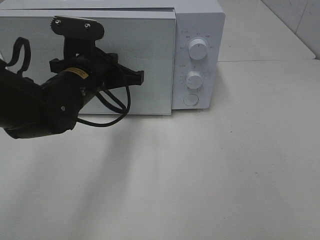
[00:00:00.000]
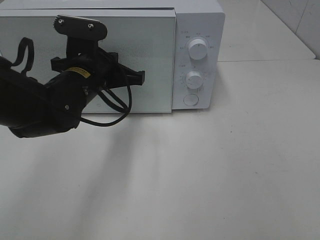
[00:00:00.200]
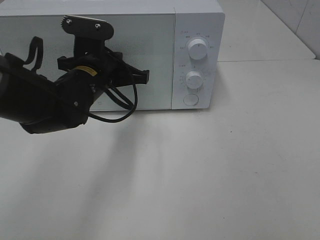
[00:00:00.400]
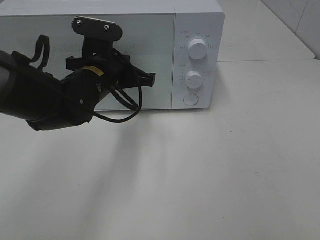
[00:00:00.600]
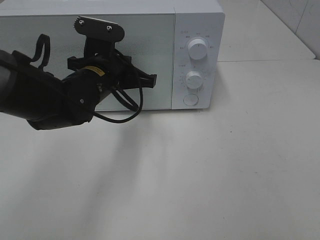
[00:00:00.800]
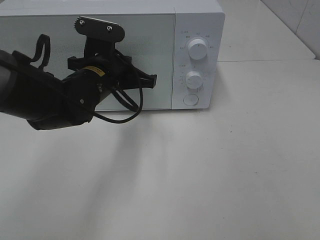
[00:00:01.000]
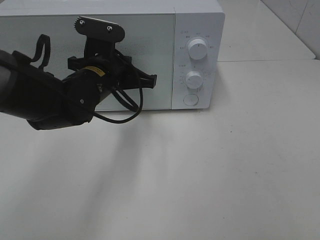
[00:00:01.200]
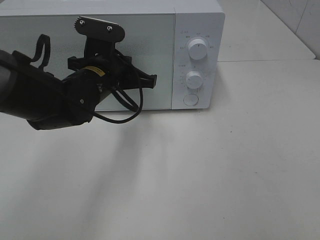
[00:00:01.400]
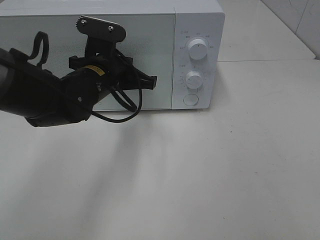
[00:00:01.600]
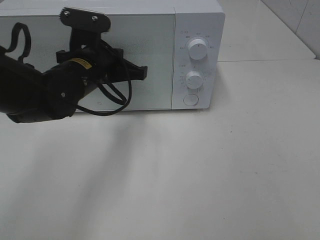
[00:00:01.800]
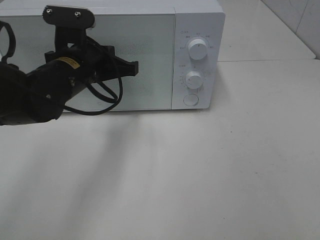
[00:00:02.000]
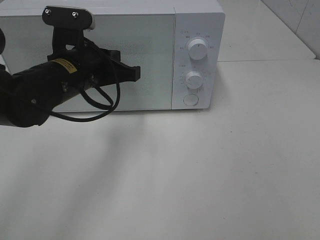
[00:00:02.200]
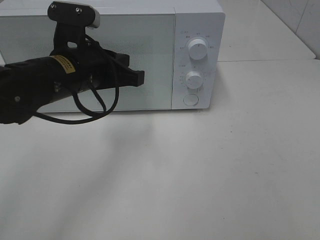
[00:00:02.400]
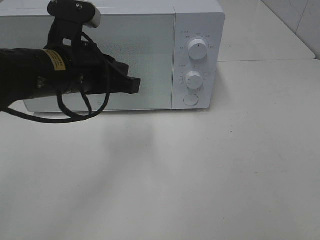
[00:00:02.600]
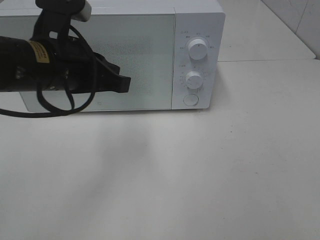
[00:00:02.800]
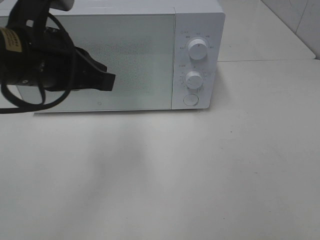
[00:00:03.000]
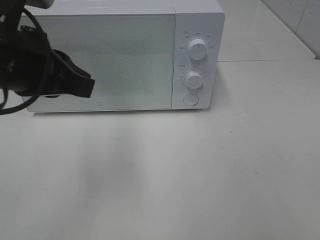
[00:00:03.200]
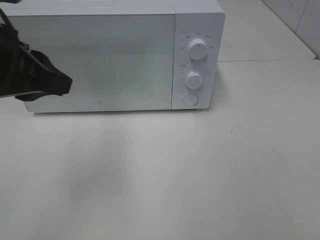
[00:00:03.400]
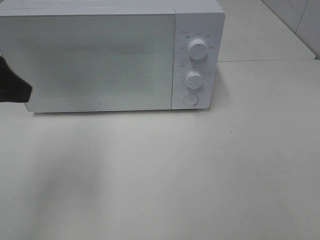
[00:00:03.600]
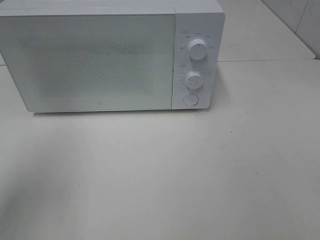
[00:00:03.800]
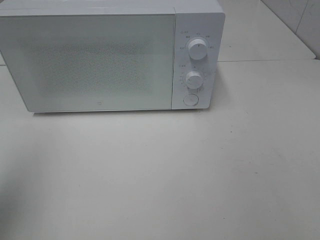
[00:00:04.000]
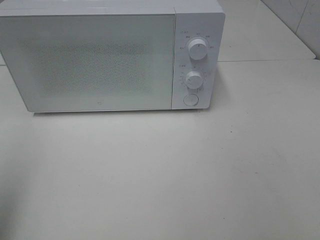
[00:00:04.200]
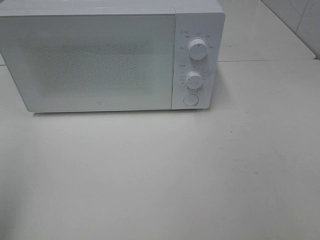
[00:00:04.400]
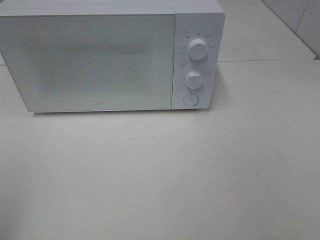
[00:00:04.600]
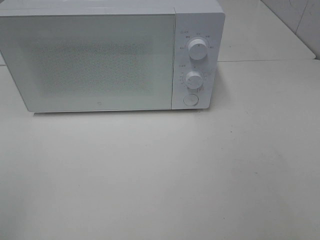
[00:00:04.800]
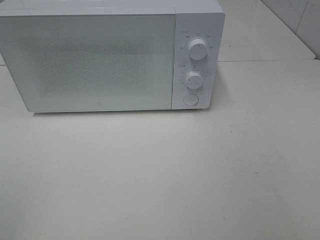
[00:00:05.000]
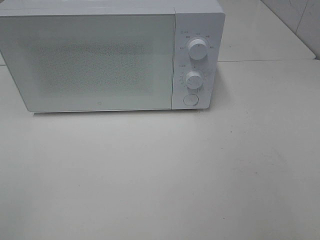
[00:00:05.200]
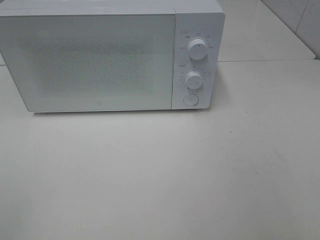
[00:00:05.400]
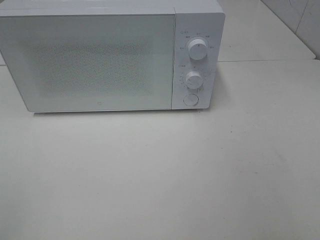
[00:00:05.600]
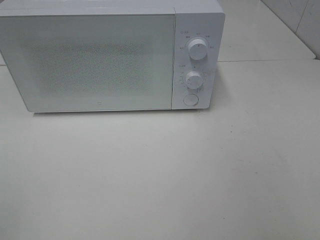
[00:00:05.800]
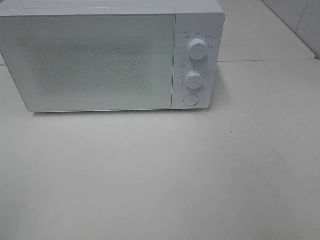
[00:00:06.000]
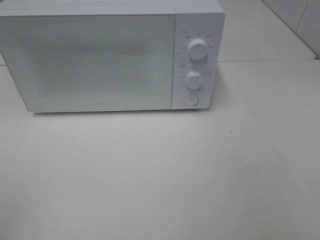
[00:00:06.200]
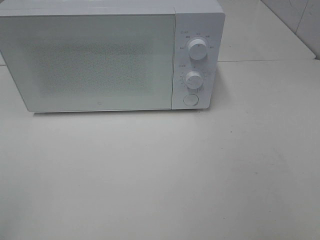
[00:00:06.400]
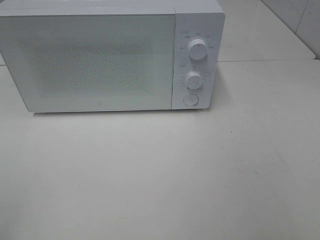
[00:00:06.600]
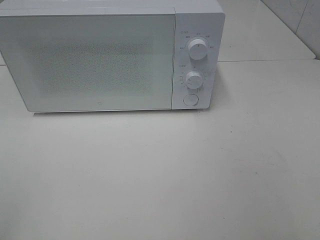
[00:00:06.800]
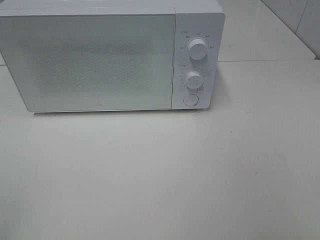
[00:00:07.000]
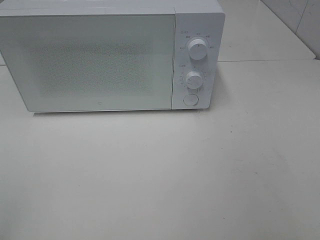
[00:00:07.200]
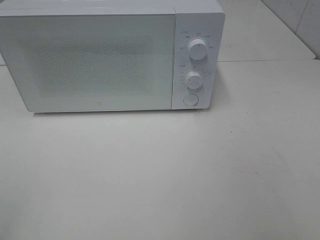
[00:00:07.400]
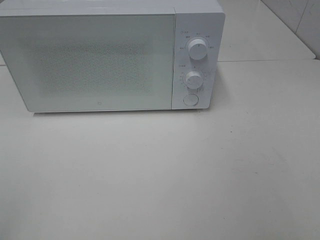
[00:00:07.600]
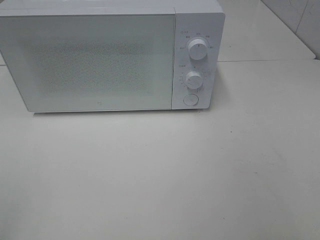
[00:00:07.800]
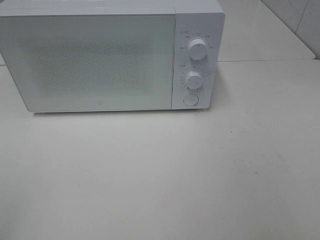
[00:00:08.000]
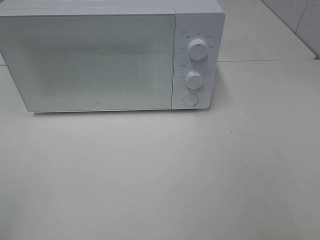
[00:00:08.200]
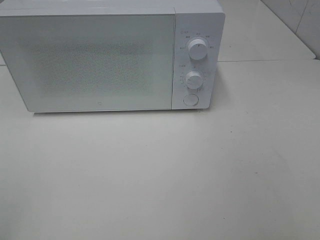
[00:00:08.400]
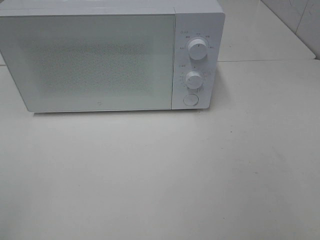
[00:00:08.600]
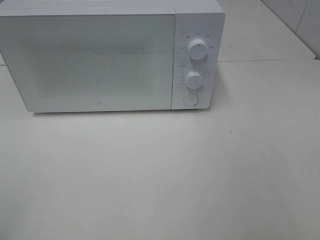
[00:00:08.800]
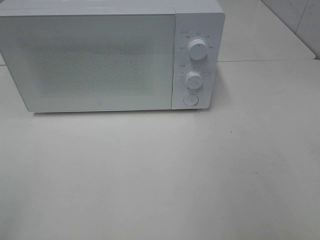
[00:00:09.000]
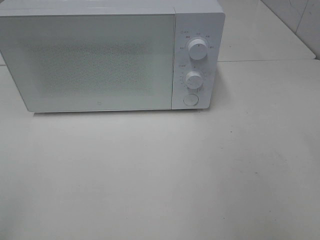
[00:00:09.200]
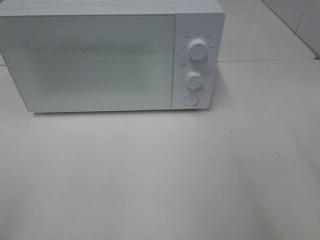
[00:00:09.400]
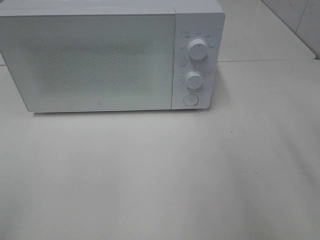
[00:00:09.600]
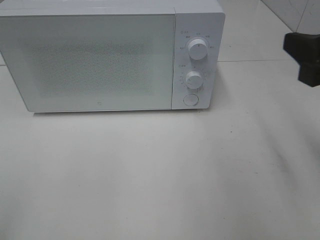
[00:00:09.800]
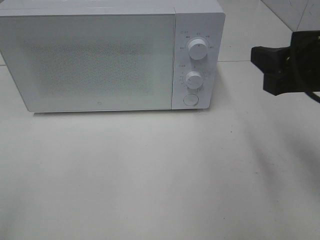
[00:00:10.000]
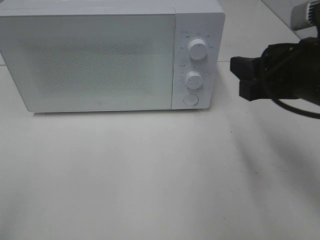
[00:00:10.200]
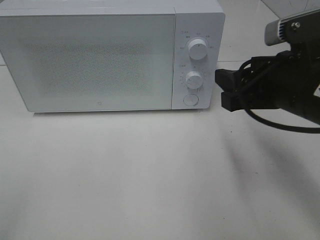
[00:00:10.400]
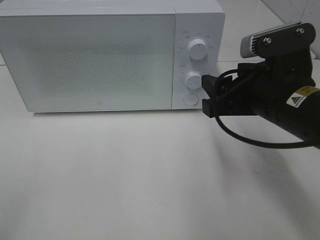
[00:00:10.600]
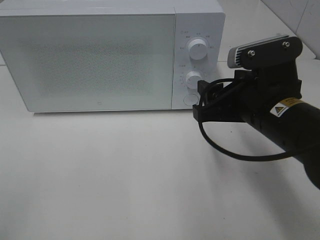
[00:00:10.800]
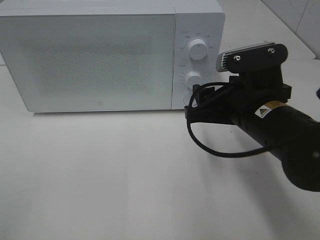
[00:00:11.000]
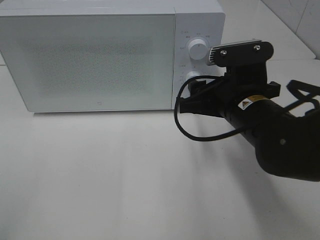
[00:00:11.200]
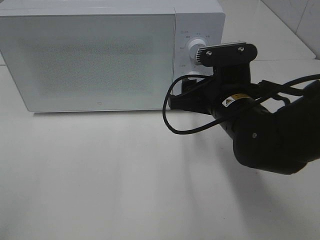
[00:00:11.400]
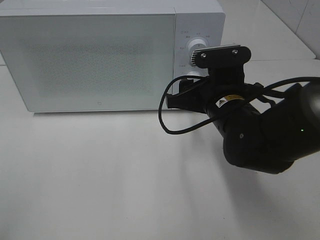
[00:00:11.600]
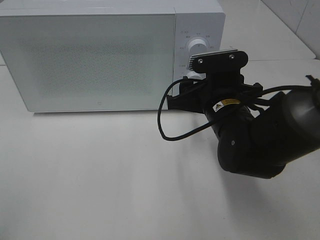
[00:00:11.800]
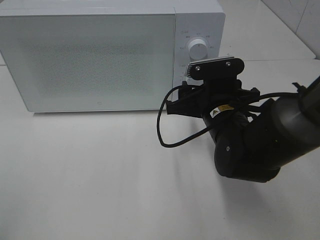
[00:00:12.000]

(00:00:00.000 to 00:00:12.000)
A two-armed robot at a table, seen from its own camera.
Task of the whole recording: Heat Sandwich.
Step, 00:00:00.000 - 00:00:02.000: Left hand: close the microwave door.
00:00:00.000 - 00:00:01.600: The grippers move only a little.
00:00:01.600 - 00:00:03.000: The left gripper moves upward, backward and to the left, roughly 15 cm.
00:00:03.000 - 00:00:04.400: The left gripper heads to the left and backward, covering about 25 cm, and opens its fingers.
00:00:06.000 - 00:00:07.600: Neither gripper changes place.
00:00:09.000 - 00:00:10.400: The right gripper is displaced forward, to the left and downward by some 20 cm.
00:00:10.400 - 00:00:12.000: The right gripper moves downward, to the left and forward, some 15 cm.

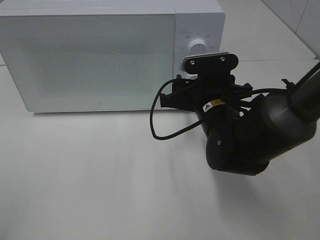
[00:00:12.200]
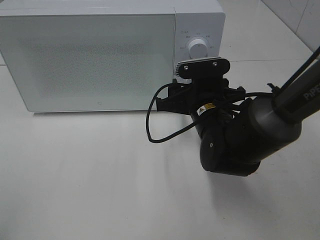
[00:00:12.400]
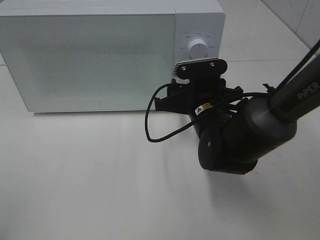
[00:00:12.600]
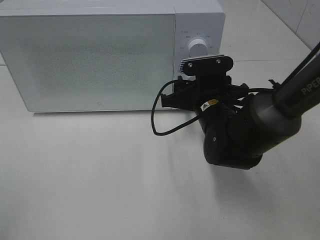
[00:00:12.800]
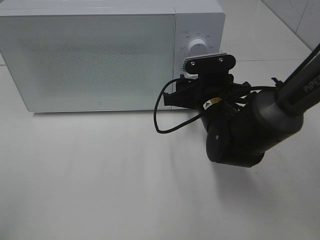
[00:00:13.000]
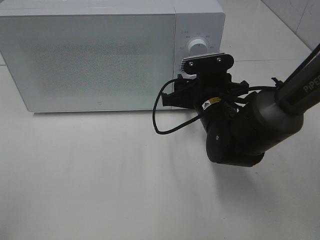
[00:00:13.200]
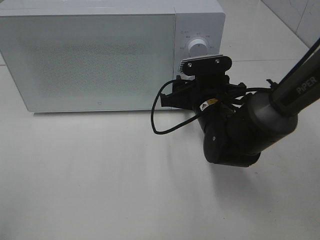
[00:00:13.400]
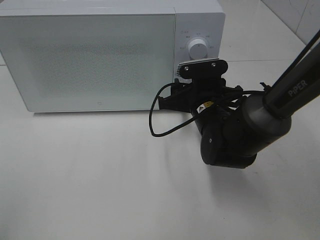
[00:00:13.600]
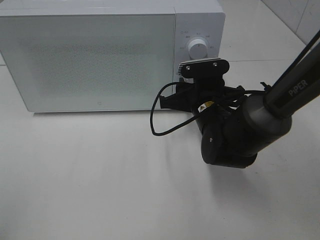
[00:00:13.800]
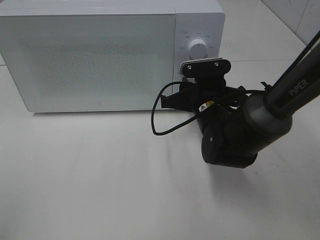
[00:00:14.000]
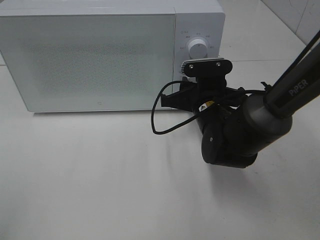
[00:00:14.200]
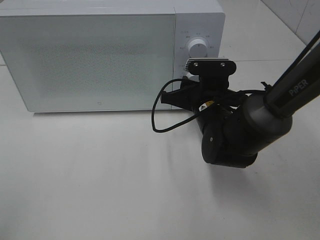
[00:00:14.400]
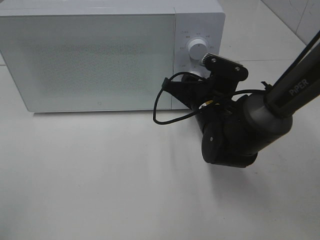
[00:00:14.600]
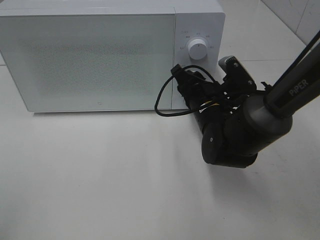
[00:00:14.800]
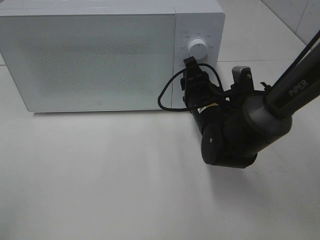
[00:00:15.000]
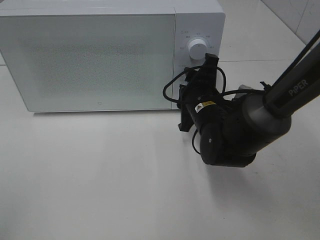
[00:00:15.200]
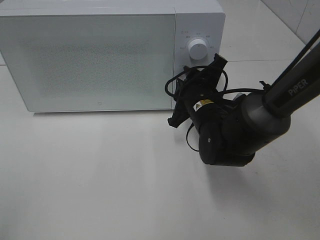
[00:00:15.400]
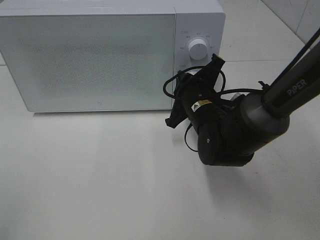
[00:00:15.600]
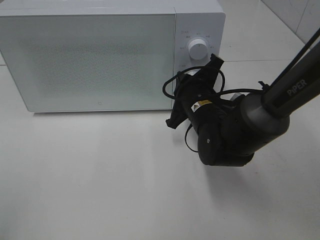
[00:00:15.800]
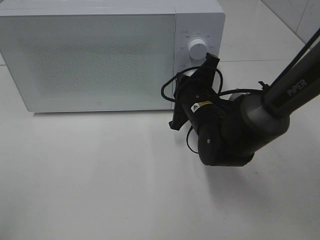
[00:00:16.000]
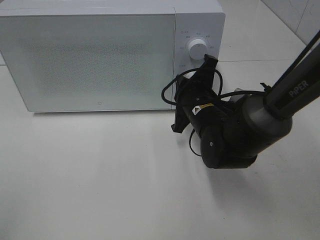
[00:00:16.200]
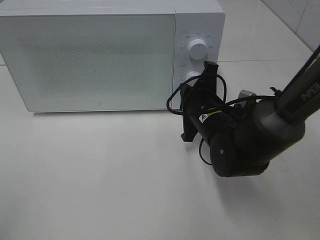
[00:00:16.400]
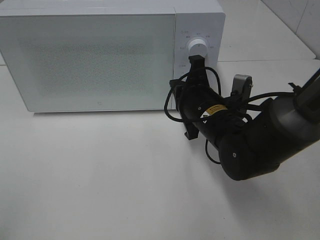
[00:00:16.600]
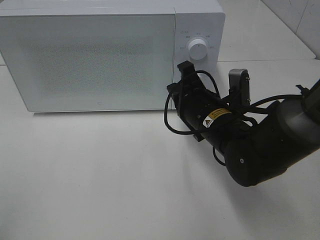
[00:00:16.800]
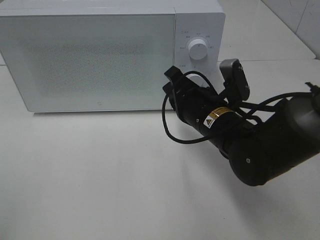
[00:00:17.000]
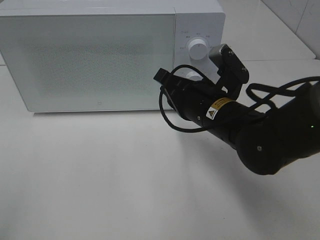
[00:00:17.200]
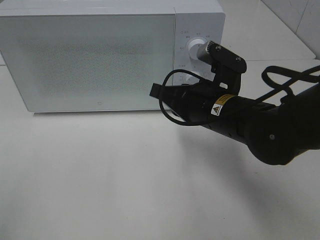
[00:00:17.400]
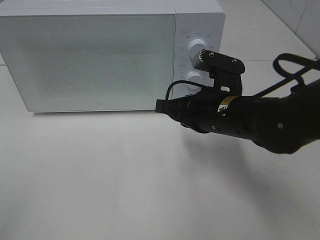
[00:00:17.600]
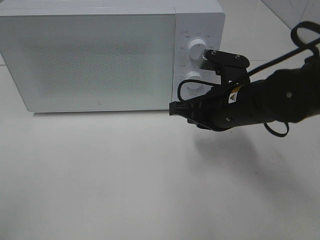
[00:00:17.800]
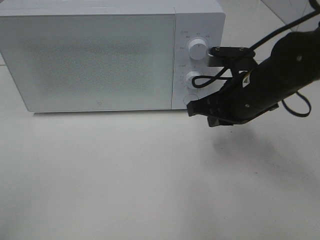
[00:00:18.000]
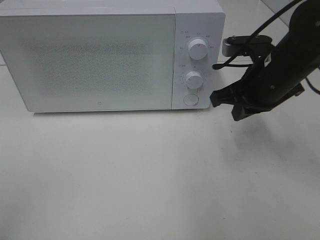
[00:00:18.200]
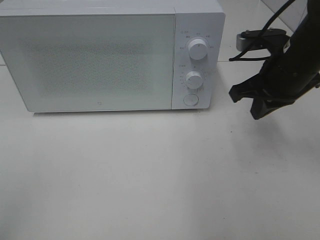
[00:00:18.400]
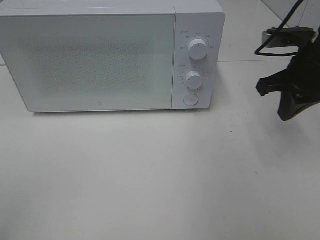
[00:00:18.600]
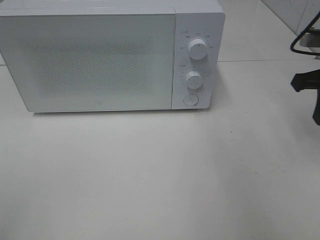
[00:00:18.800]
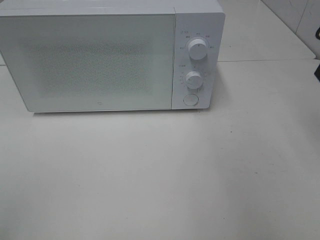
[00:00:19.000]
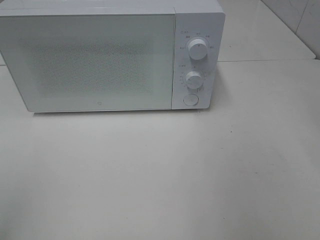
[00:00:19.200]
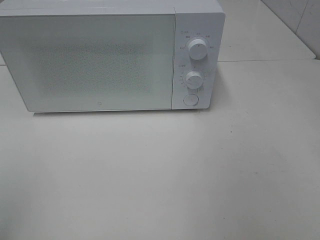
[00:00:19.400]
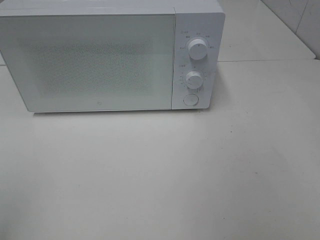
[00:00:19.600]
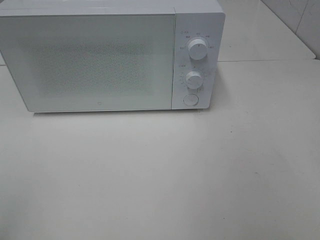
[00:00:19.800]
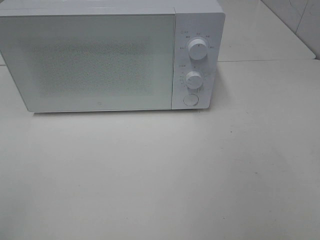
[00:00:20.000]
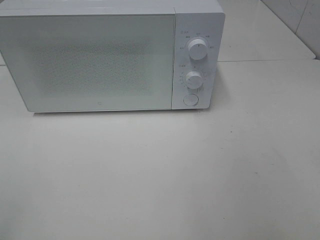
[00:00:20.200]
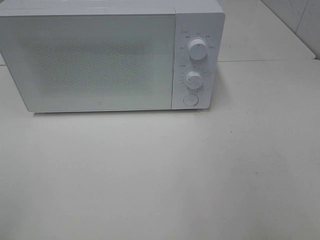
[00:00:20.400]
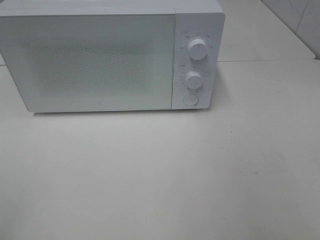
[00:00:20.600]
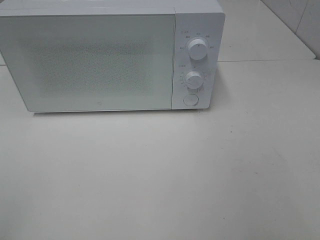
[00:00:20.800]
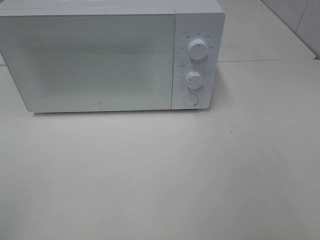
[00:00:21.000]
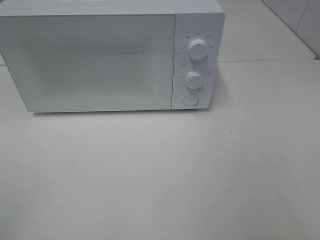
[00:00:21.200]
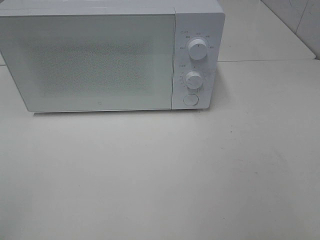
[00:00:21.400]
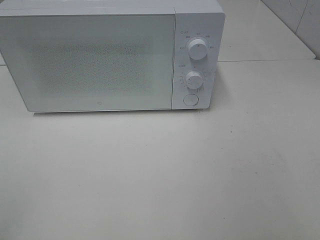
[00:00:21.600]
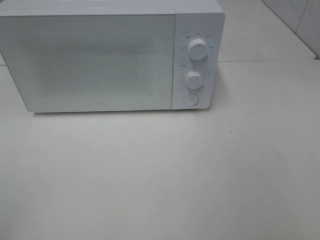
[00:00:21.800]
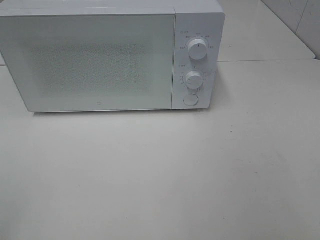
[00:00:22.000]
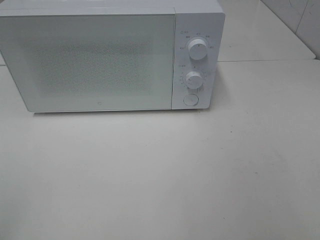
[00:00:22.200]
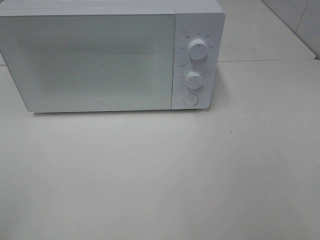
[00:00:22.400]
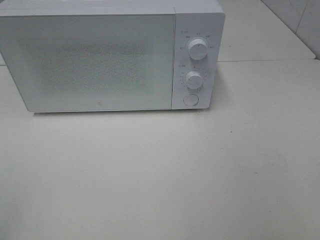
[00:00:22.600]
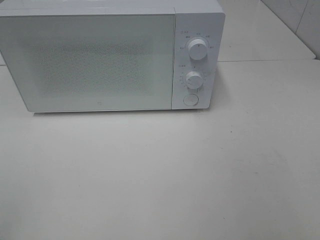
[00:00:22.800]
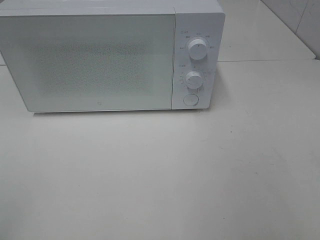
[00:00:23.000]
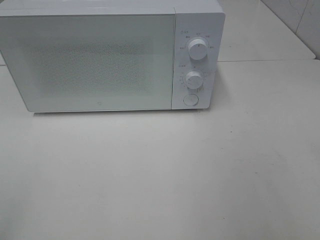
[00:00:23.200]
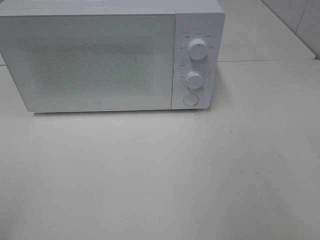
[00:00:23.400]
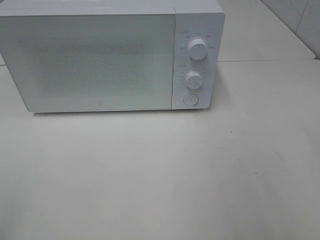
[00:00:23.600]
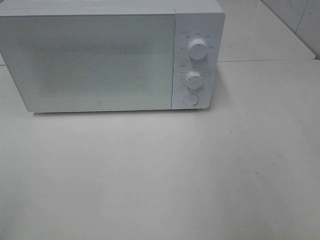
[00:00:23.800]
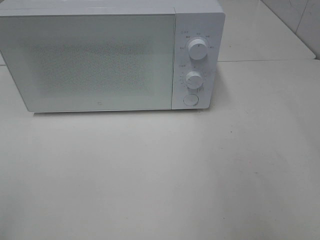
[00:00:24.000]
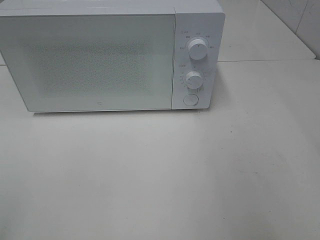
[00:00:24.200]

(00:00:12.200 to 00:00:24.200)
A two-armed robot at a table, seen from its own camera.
Task of the whole recording: Heat Sandwich.
Step, 00:00:12.200 - 00:00:16.400: Right hand: twist timer button.
00:00:12.200 - 00:00:13.800: The grippers stay close to where they were, moving slightly.
00:00:15.200 - 00:00:16.600: The right gripper closes its fingers.
00:00:16.600 - 00:00:18.200: The right gripper shifts about 10 cm to the right and upward.
00:00:18.200 - 00:00:19.800: The right gripper is displaced backward, to the right and upward by approximately 25 cm, and opens.
